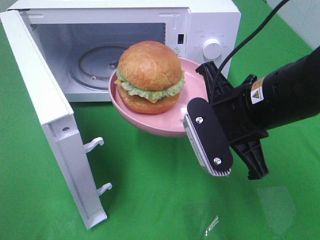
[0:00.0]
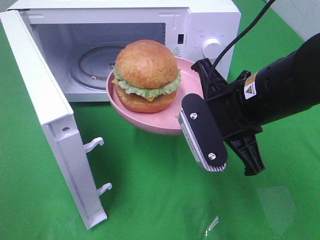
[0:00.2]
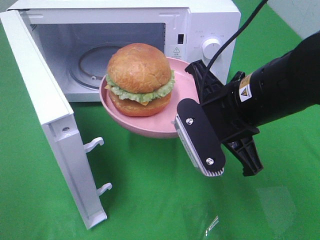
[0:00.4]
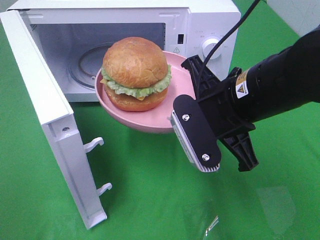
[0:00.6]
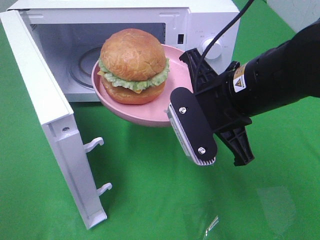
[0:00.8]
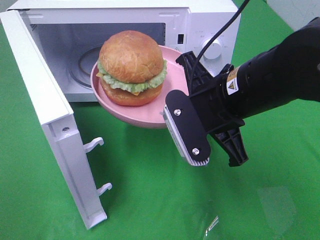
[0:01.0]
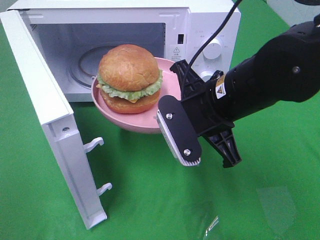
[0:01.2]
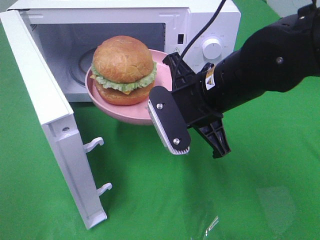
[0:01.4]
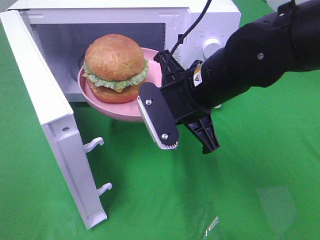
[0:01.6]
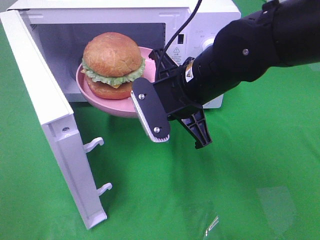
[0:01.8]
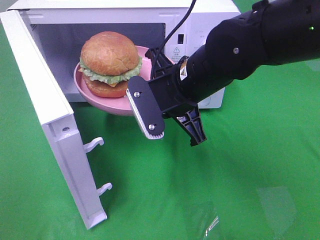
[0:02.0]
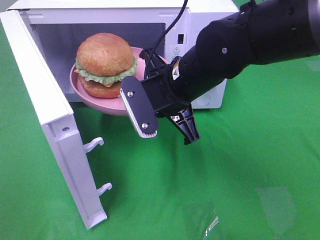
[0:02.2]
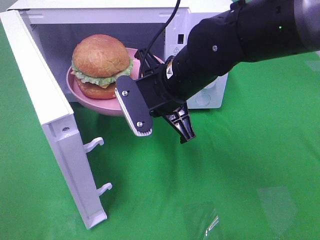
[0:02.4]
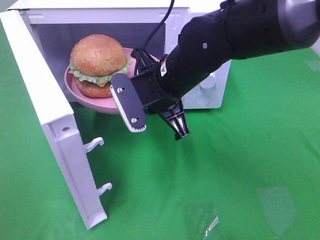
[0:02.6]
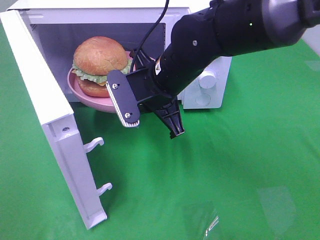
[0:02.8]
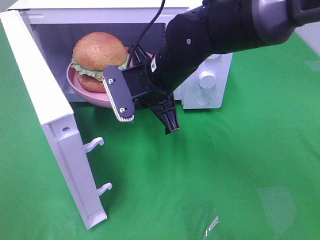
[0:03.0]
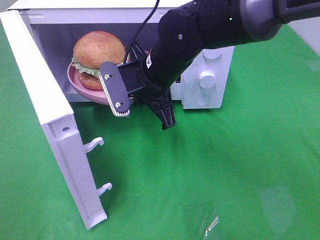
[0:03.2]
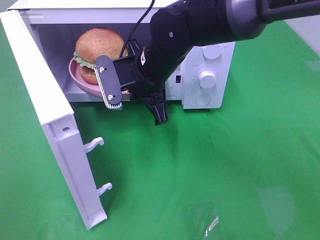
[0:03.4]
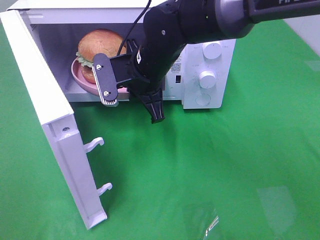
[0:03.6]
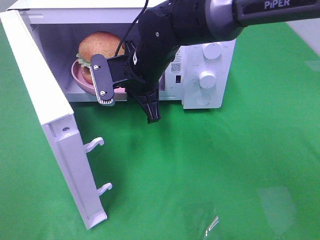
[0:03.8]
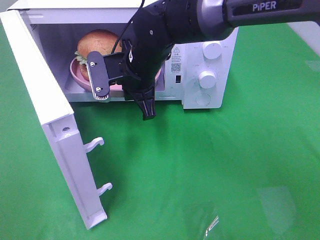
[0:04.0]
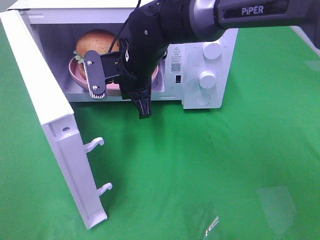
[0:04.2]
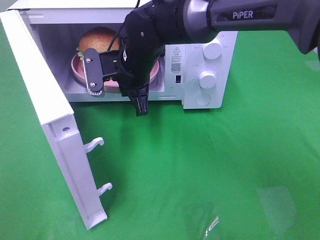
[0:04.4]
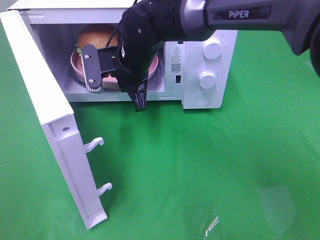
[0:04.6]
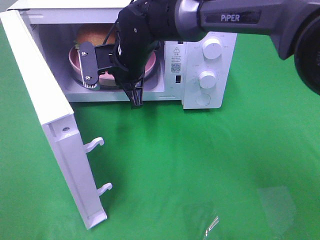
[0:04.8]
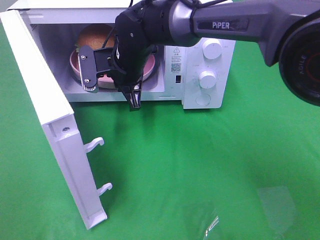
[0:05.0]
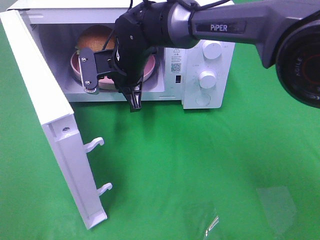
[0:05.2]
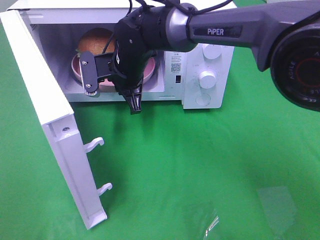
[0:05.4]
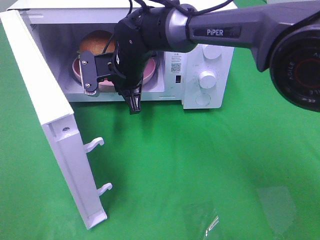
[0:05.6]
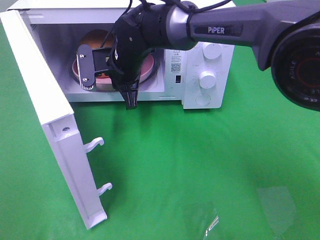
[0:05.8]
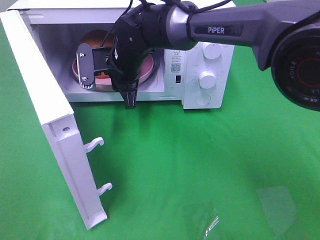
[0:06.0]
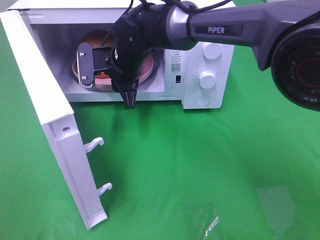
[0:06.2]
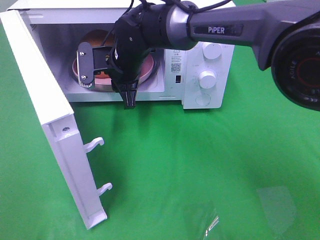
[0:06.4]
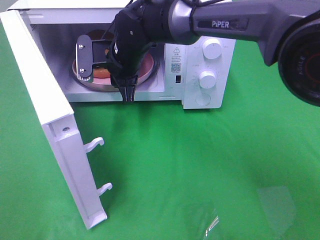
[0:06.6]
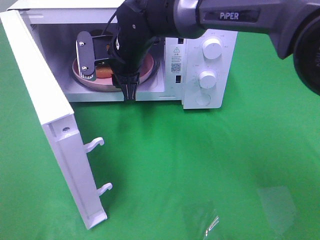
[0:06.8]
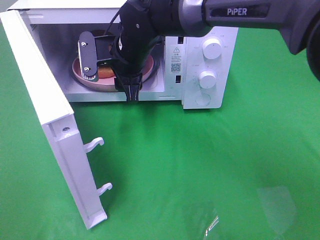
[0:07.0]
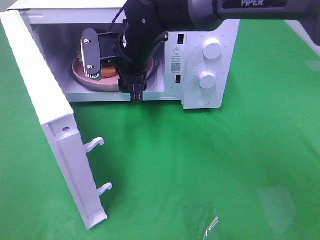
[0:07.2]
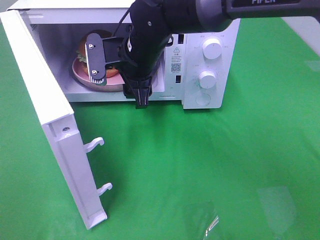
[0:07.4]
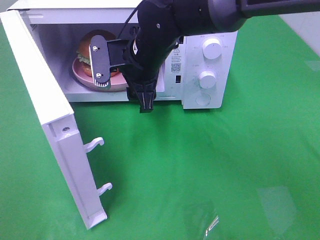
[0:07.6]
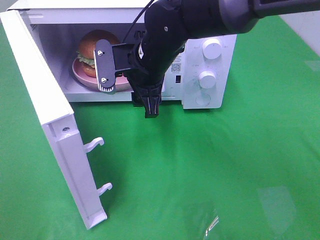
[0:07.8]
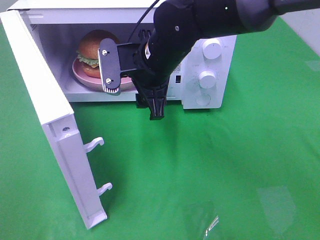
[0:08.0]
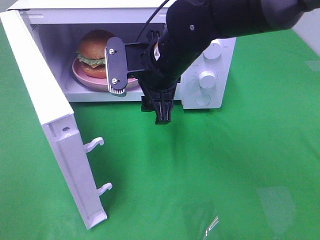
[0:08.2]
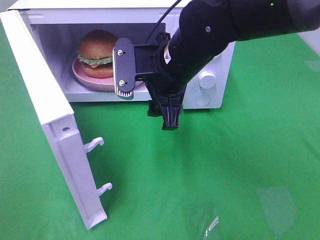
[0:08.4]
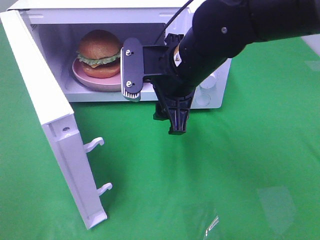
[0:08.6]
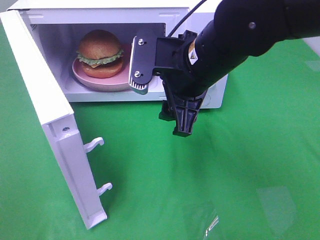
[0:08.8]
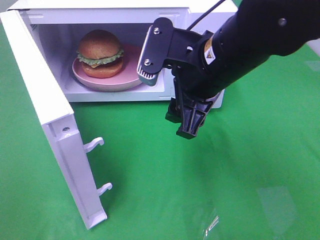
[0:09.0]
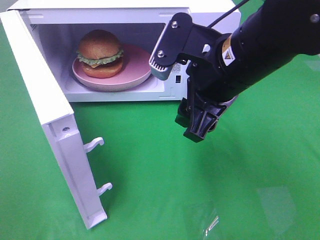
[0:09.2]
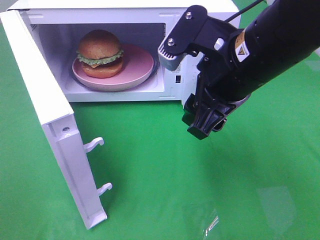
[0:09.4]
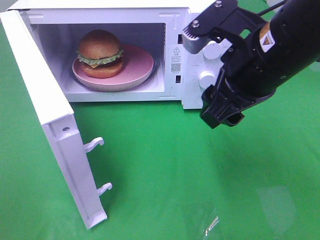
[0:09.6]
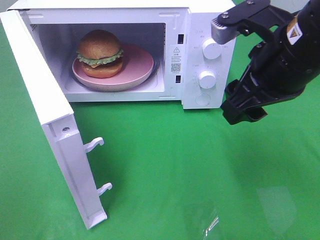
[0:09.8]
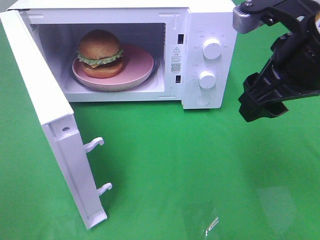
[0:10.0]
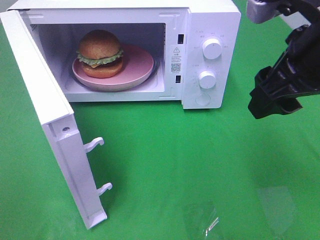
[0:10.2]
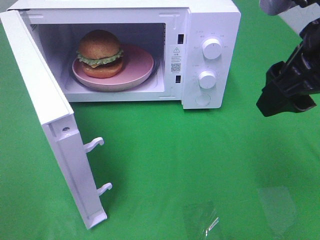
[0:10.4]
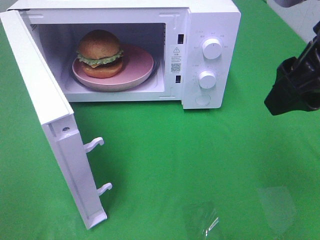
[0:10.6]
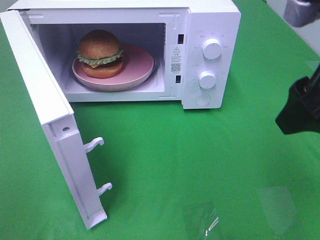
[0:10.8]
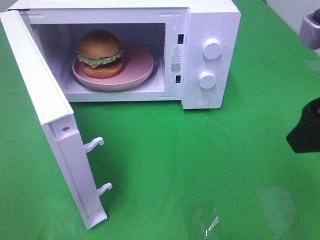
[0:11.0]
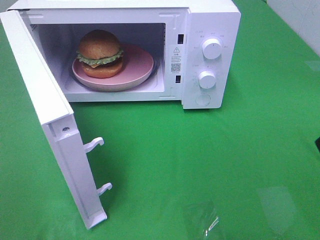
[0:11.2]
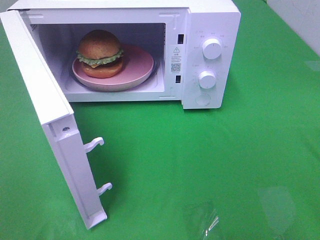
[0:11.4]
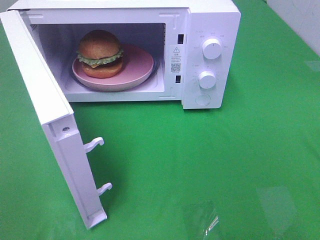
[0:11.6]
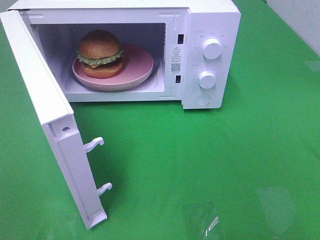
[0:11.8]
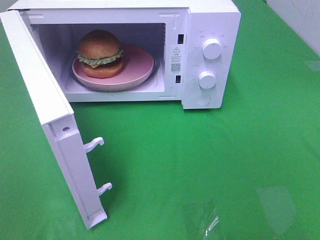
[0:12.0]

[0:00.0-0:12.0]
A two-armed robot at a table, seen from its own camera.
Task of the whole recording: Heat the burger.
Step, 0:00.0 to 0:05.8: Right hand: place the plate in the microwave.
0:00.0 to 0:01.6: The right gripper moves to the left, roughly 5 cm.
0:01.6 to 0:03.0: The right gripper is displaced forward and to the left by some 10 cm.
0:03.0 to 0:04.4: The right gripper goes about 5 cm forward.
0:04.4 to 0:06.0: There are only small adjustments of the grippers.
0:06.0 to 0:07.6: The right gripper moves approximately 5 cm.
0:07.6 to 0:09.0: The right gripper goes about 15 cm backward and to the right.
0:09.0 to 0:10.4: The right gripper shifts about 15 cm to the right, upward and backward.
0:10.4 to 0:12.0: The right gripper heads backward and to the right, covering some 20 cm.

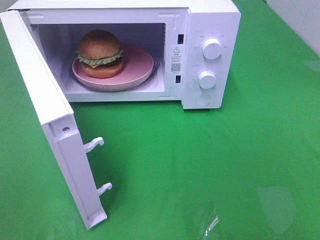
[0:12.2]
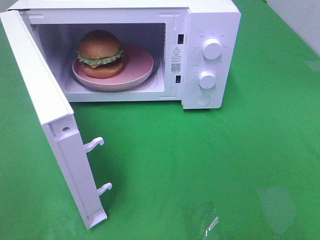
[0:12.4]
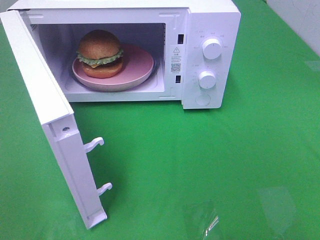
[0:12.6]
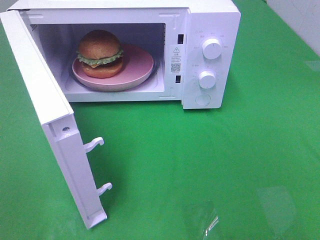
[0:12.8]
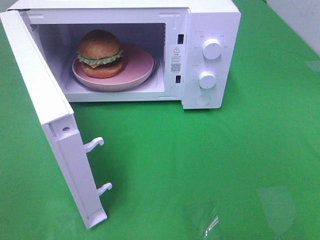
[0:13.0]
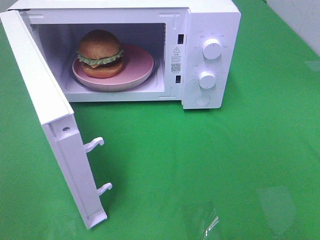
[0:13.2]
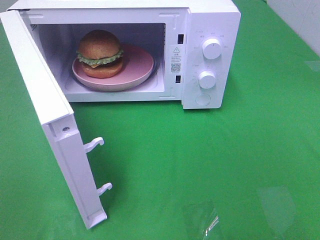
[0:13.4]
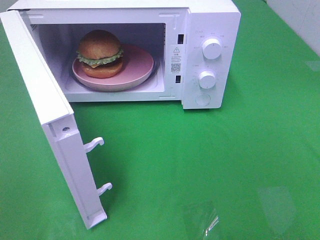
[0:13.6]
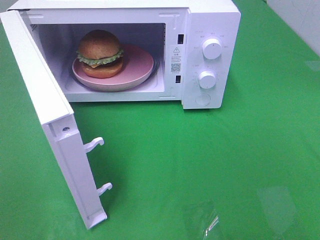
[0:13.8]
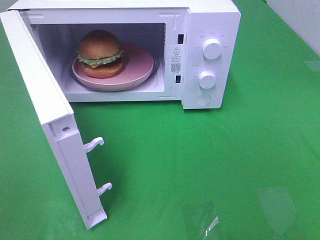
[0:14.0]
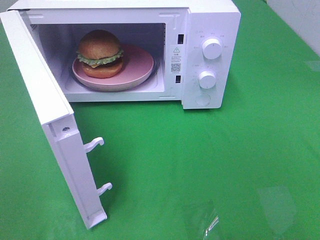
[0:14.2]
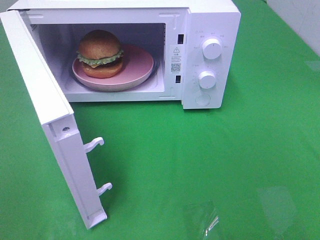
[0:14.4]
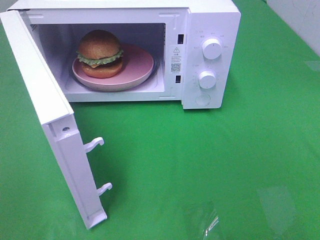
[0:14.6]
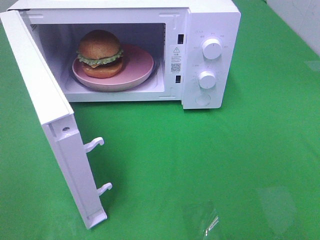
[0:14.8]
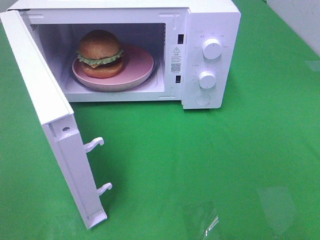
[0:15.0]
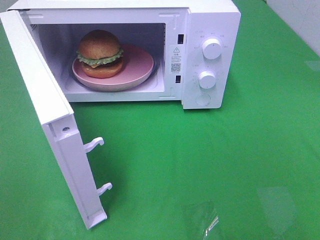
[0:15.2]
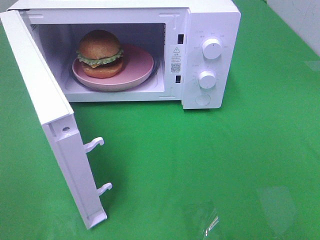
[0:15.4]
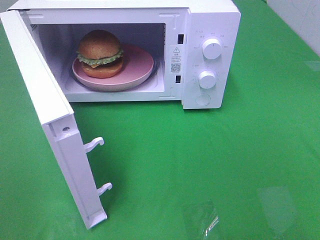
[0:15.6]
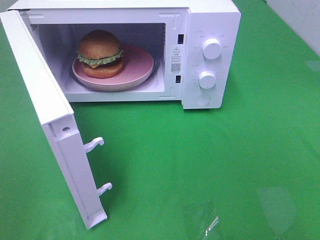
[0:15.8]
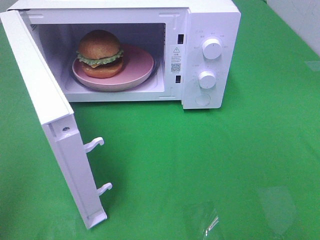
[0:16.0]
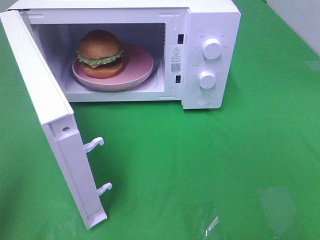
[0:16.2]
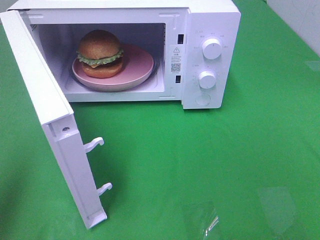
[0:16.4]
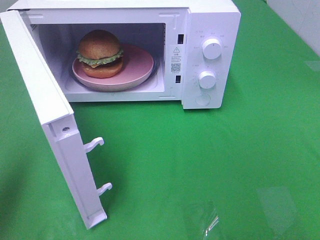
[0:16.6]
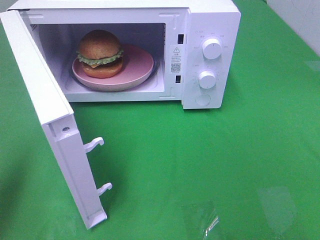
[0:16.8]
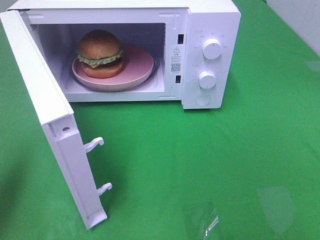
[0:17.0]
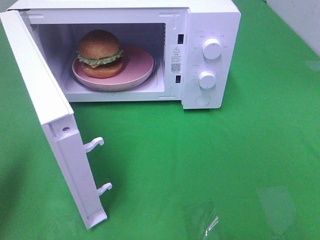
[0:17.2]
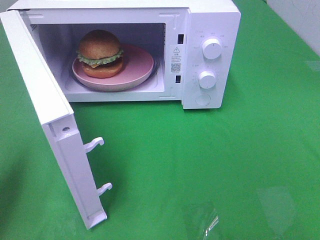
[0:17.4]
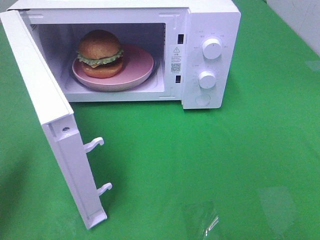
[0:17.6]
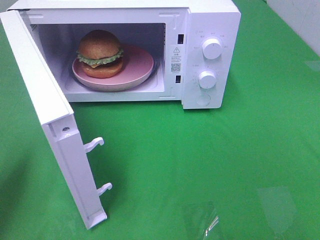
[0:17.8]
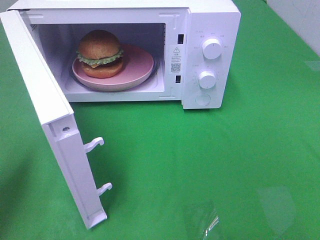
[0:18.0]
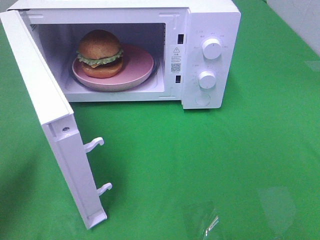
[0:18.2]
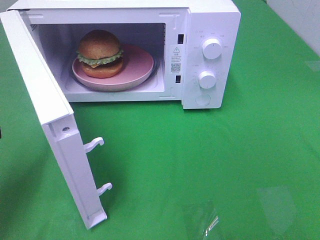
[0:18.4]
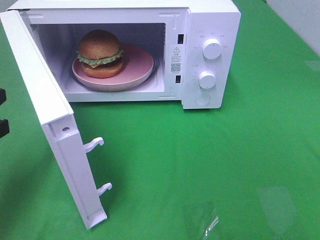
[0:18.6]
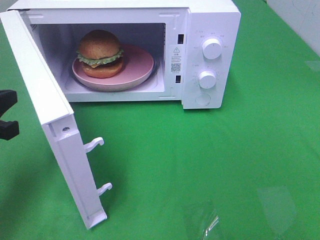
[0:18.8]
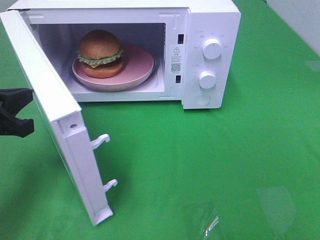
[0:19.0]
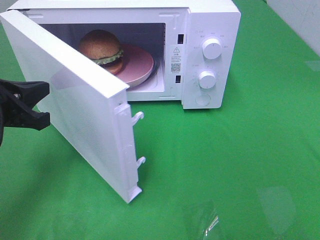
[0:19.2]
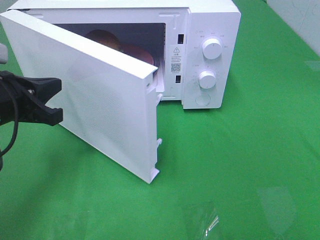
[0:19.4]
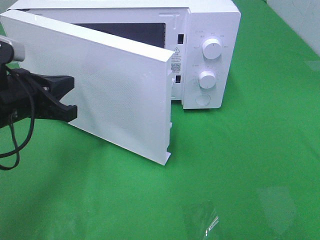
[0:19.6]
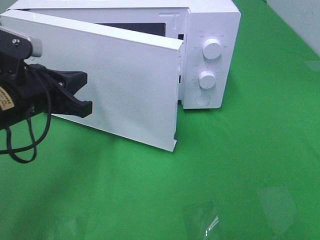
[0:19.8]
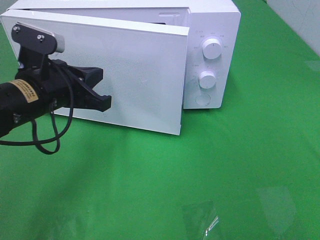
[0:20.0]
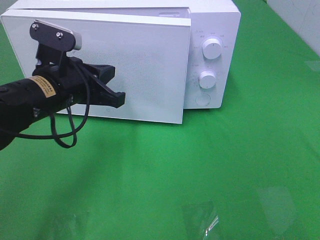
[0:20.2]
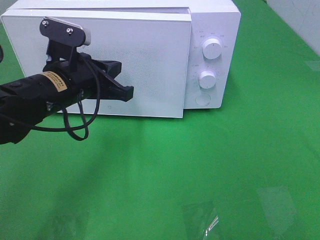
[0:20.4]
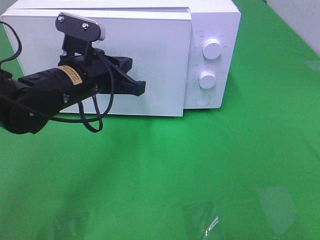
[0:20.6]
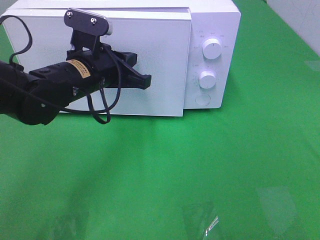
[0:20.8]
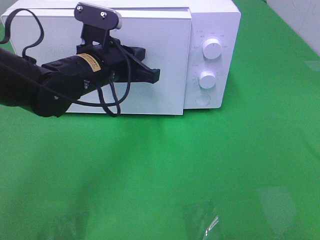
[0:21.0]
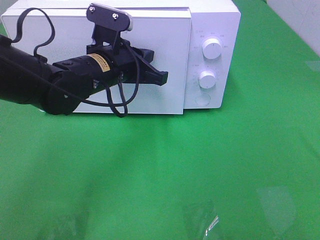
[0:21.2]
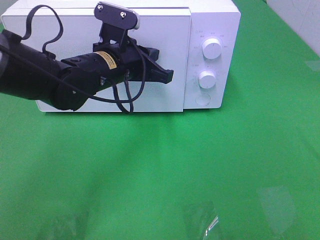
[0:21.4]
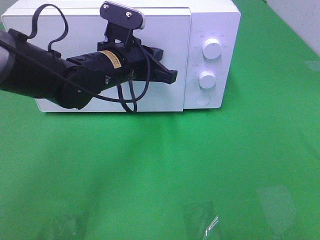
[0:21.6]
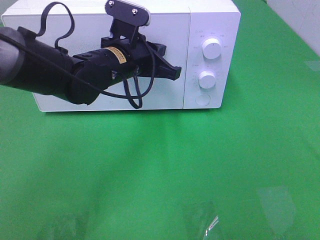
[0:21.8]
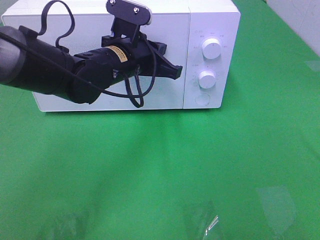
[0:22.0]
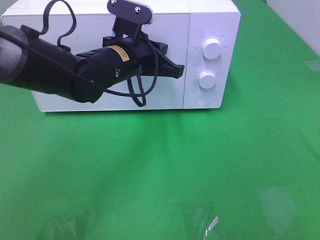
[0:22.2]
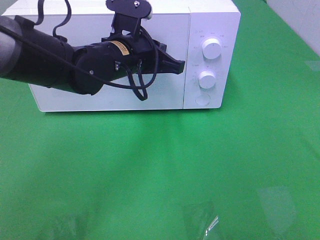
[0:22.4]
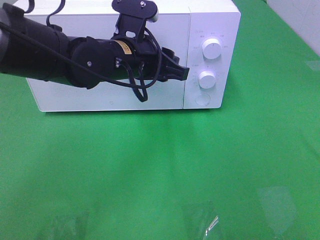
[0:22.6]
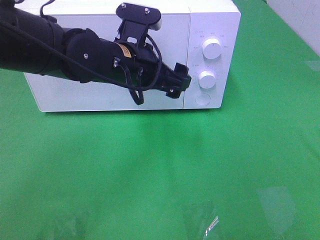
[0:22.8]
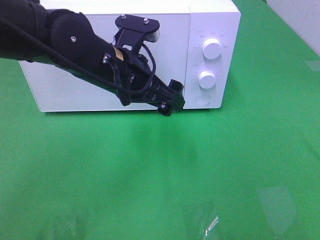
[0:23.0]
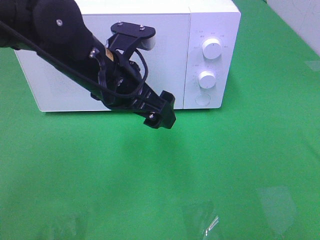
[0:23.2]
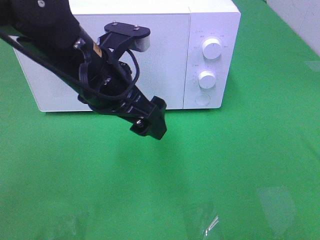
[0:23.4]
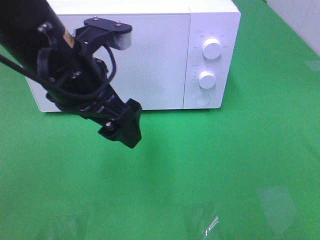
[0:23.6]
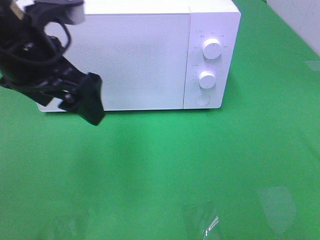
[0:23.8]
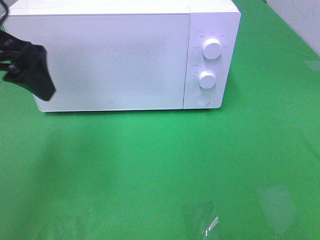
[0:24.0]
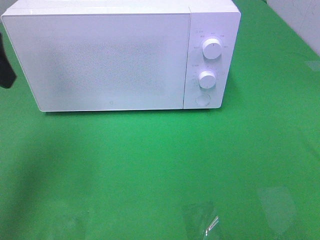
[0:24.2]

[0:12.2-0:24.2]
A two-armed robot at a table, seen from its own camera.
Task of the whole recording: Heat the burger.
Step, 0:12.2 to 0:22.4: Left hand: close the microwave door.
0:13.8 to 0:15.2: The two grippers keep their place.
0:15.2 to 0:16.6: The left gripper shifts about 15 cm forward, and closes.
0:18.2 to 0:19.8: The left gripper travels to the right and forward by about 15 cm.
0:19.8 to 0:21.2: The left gripper heads to the right and forward, covering about 15 cm.
0:21.2 to 0:22.6: The left gripper opens.
0:22.6 to 0:24.2: The left gripper is displaced to the left and upward by about 25 cm, and opens its fingers.
